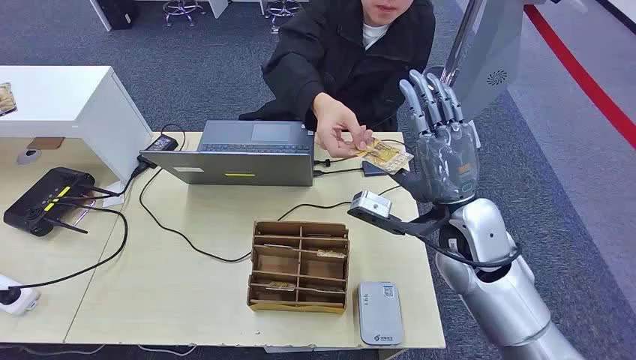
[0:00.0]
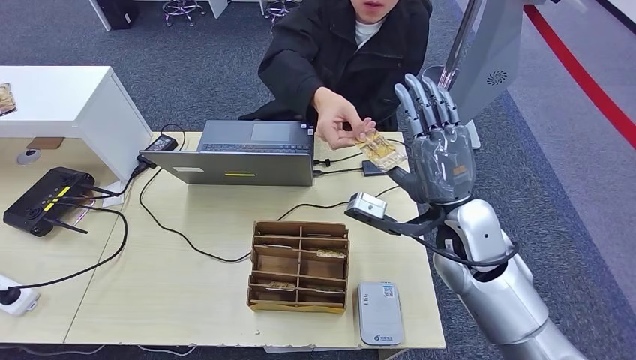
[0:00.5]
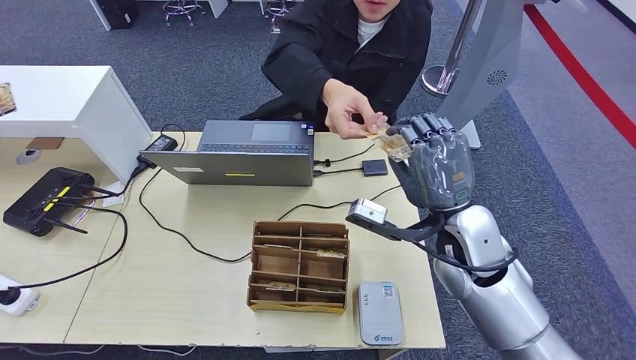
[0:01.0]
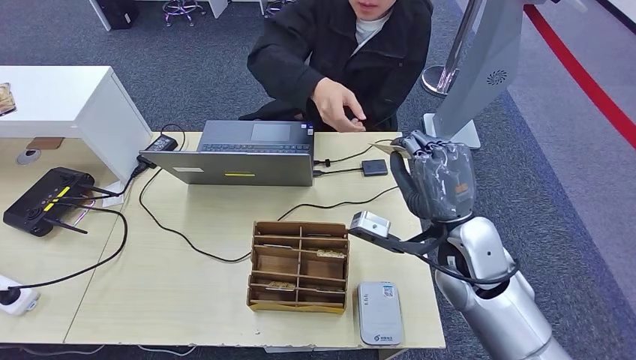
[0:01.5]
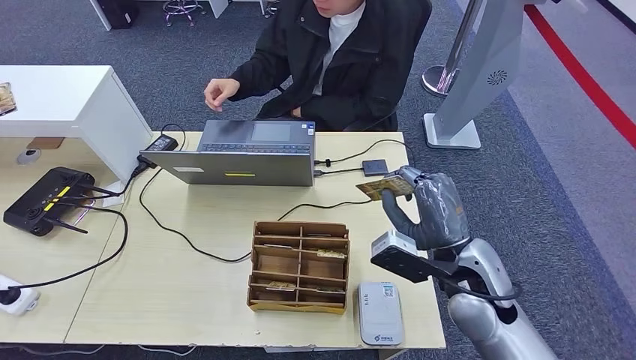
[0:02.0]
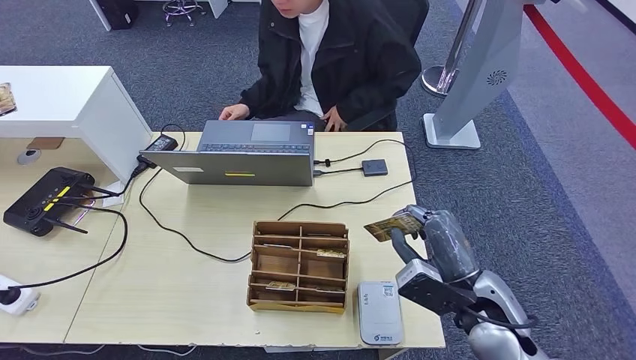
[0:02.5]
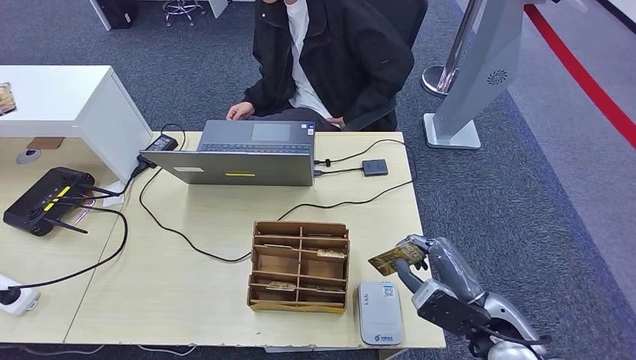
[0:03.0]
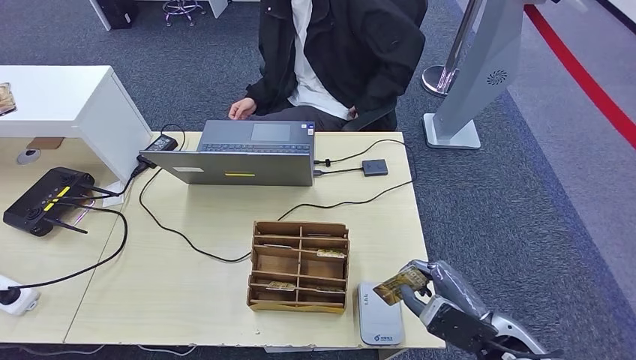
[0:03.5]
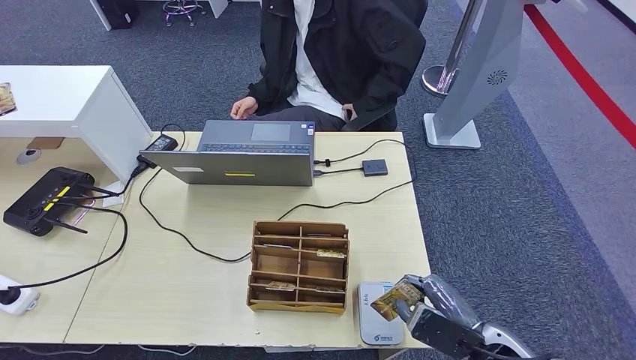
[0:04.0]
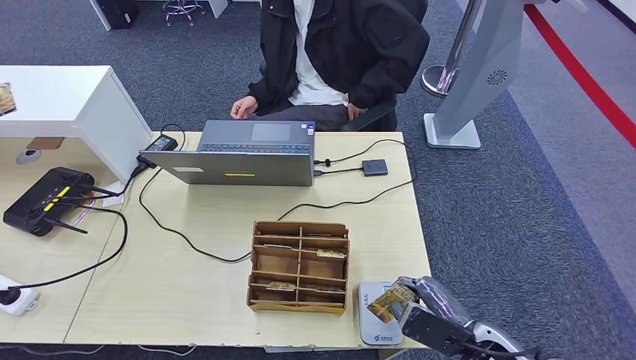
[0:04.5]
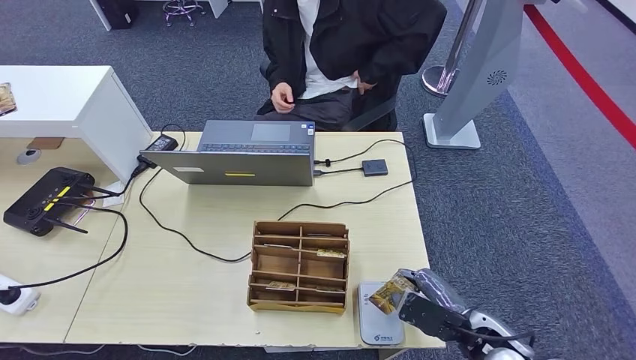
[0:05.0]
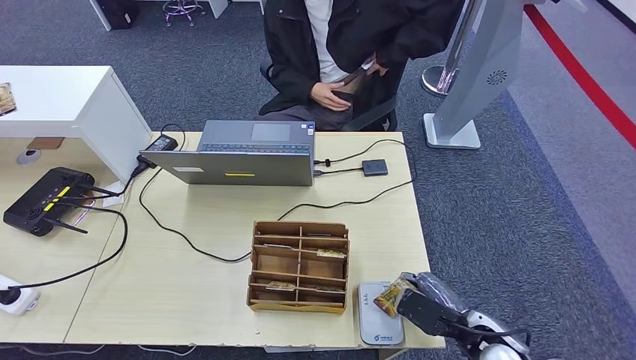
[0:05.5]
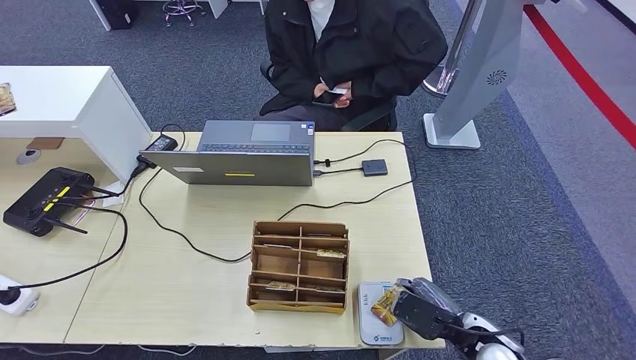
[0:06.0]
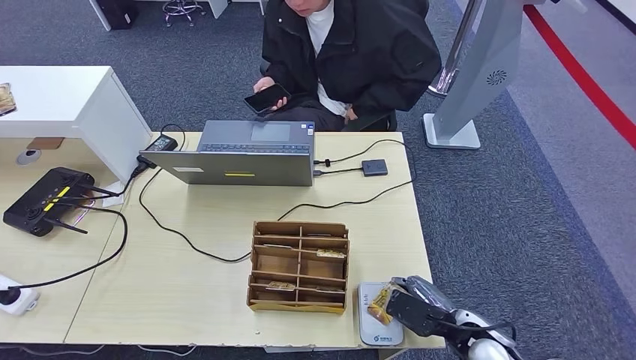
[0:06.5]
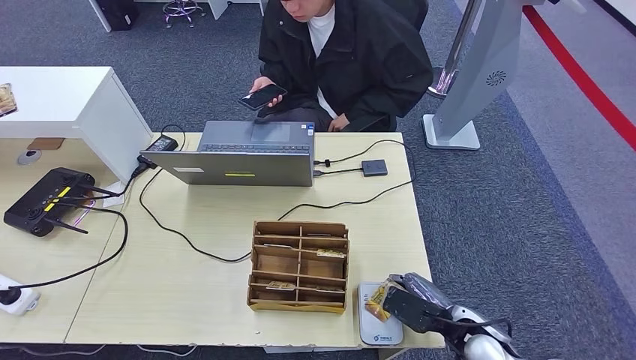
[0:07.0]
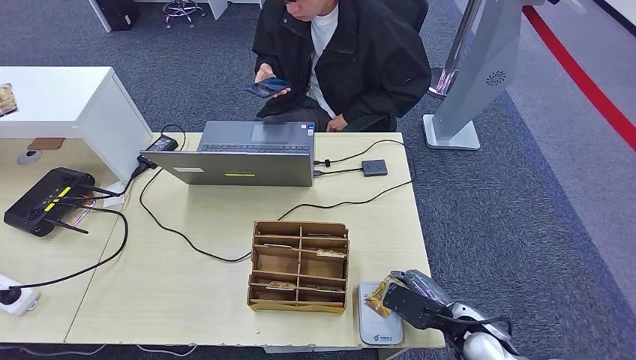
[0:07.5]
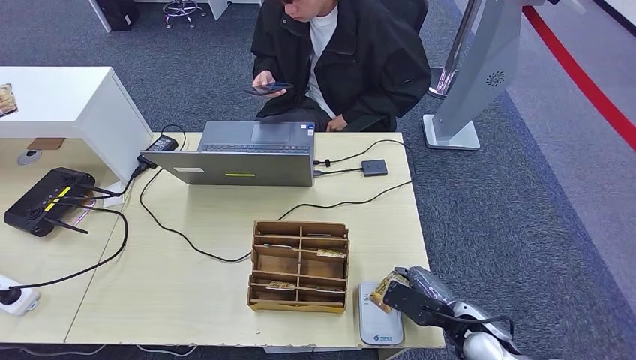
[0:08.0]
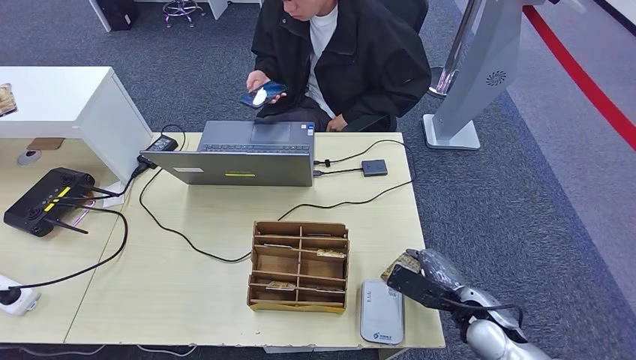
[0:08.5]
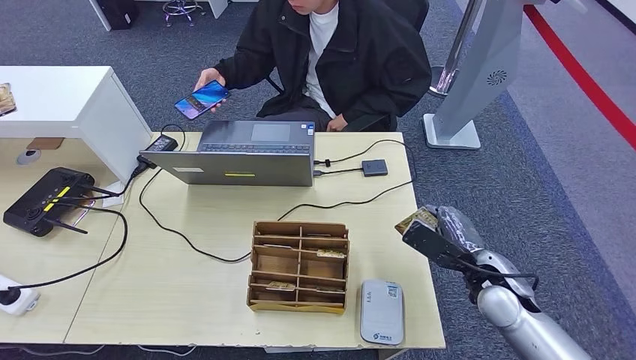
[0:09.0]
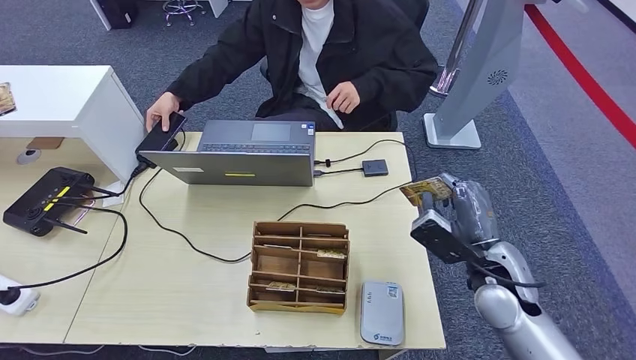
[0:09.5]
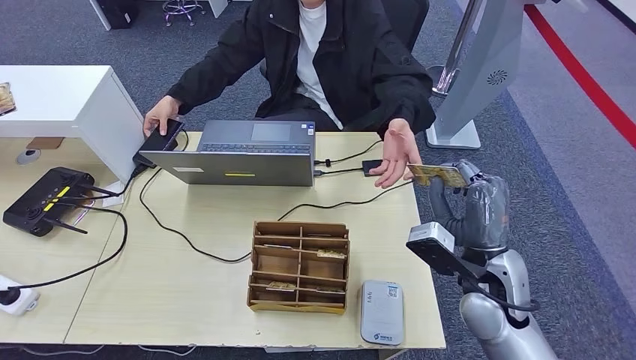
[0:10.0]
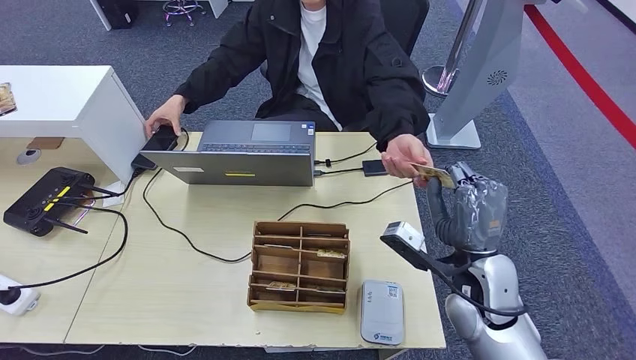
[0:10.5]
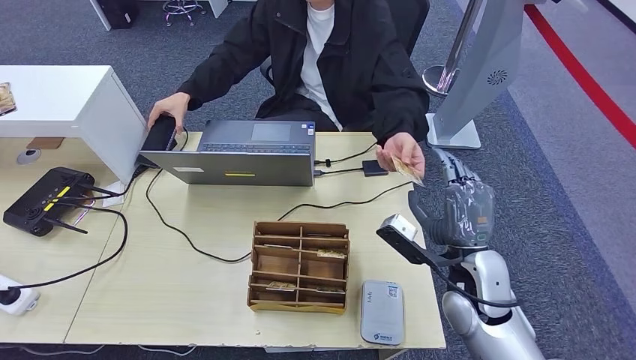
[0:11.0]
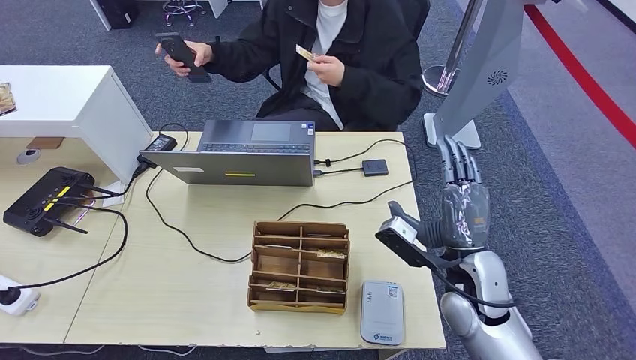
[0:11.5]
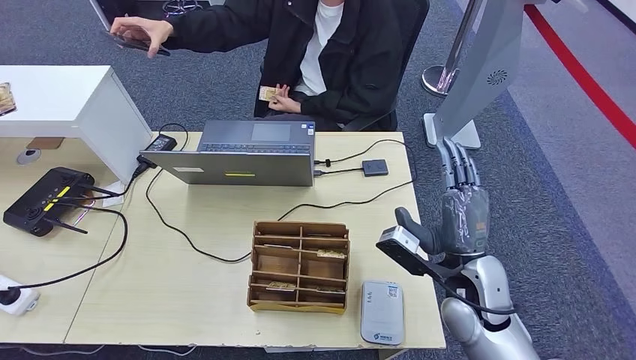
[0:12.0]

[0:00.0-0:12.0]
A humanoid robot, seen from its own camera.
Step, 0:00.0 to 0:01.5: Take the ID card from the person's hand.
Step, 0:02.0 to 0:05.0: Place the ID card on the card reader.
Step, 0:05.5 to 0:11.0: Hand the ID card to the person.
0:02.0 to 0:04.0: The right hand goes some 15 cm backward, downward and to the right.
0:04.0 to 0:06.0: The right hand shifts by roughly 5 cm.
0:06.0 to 0:08.0: The hands make only small movements.
0:08.0 to 0:10.0: The right hand heads upward, covering about 15 cm.

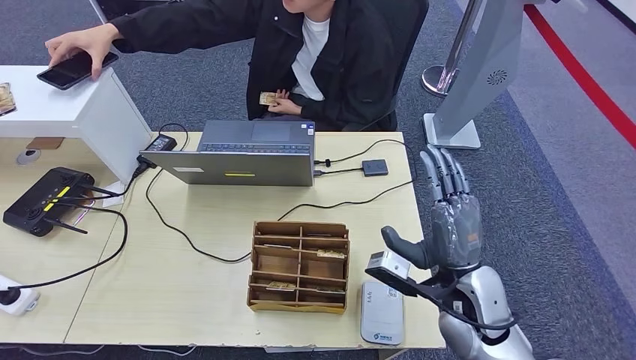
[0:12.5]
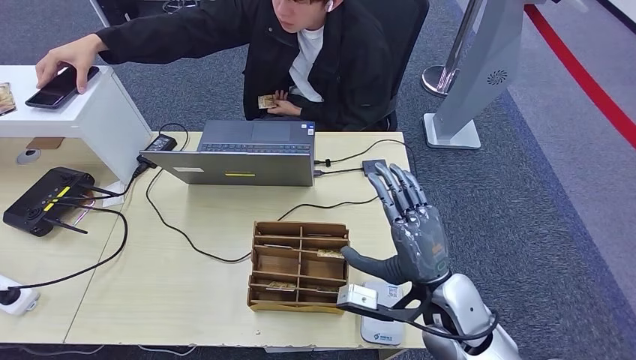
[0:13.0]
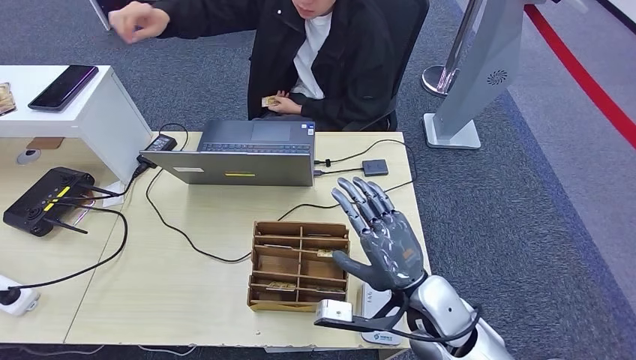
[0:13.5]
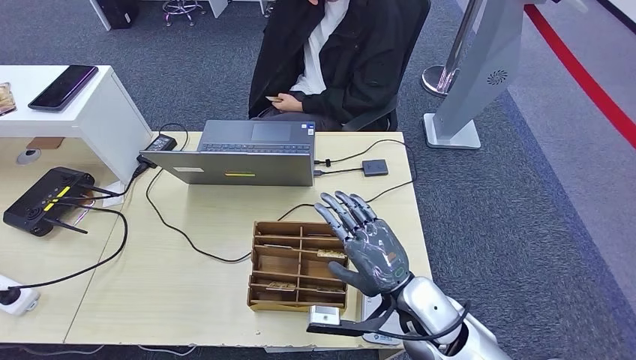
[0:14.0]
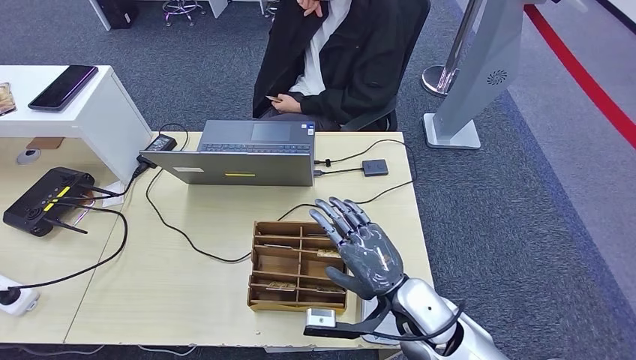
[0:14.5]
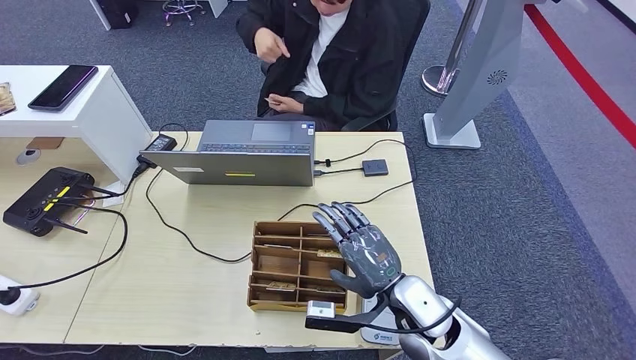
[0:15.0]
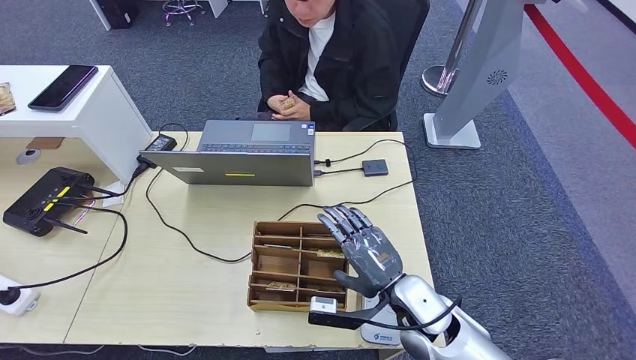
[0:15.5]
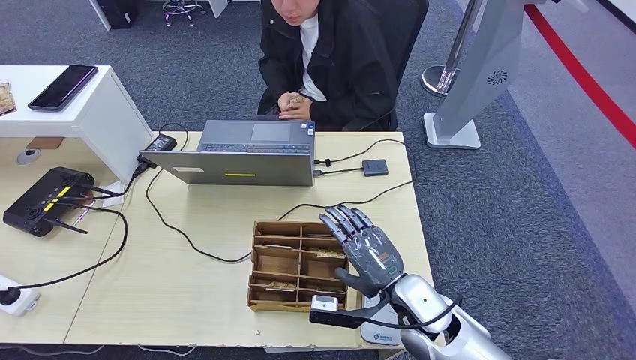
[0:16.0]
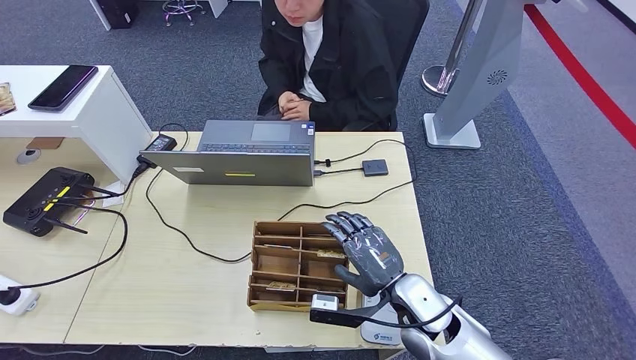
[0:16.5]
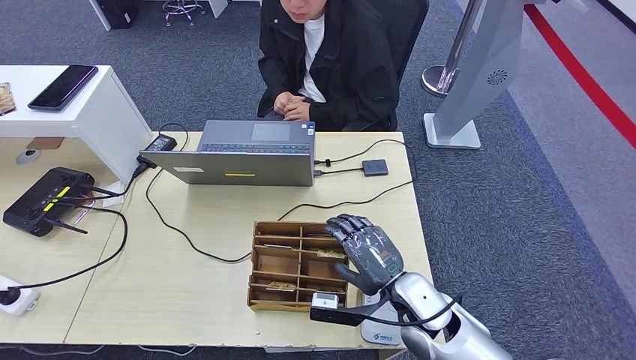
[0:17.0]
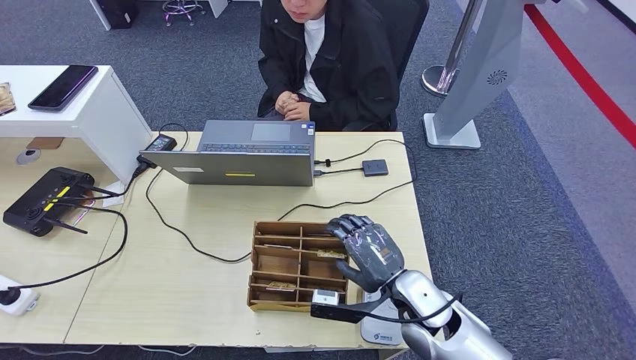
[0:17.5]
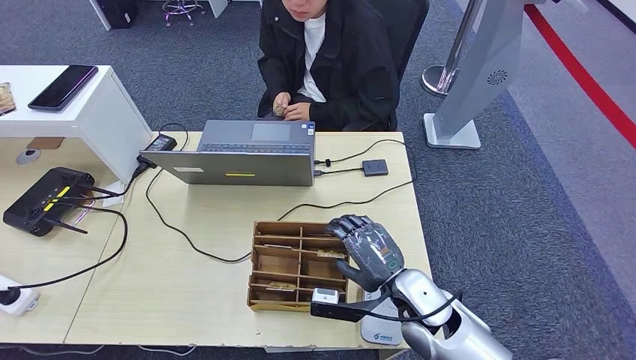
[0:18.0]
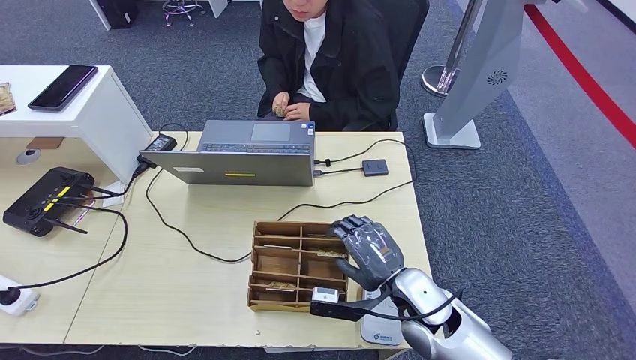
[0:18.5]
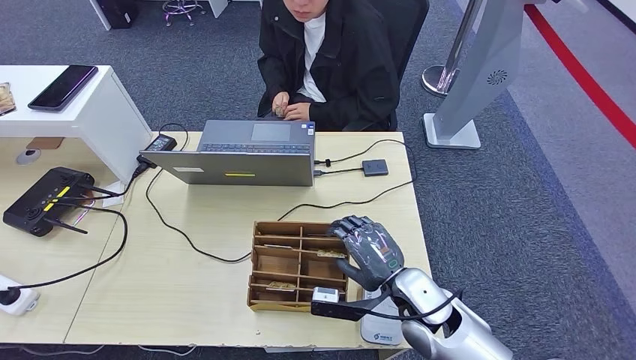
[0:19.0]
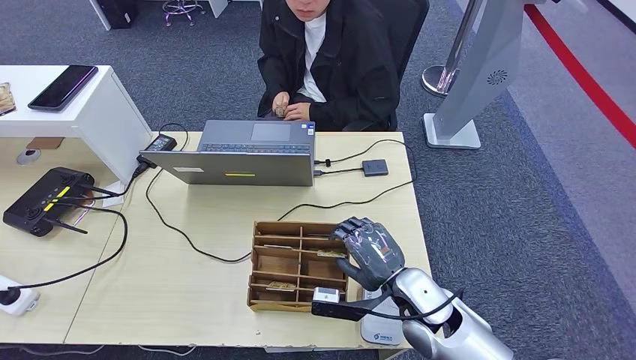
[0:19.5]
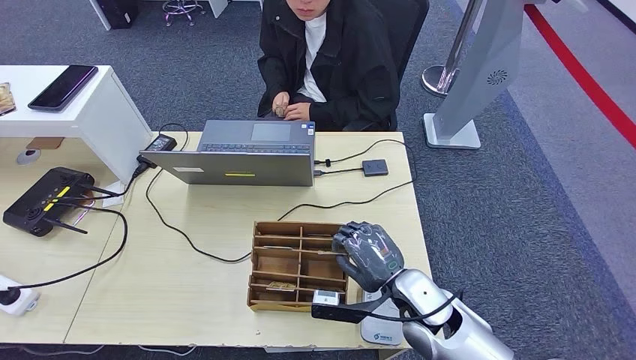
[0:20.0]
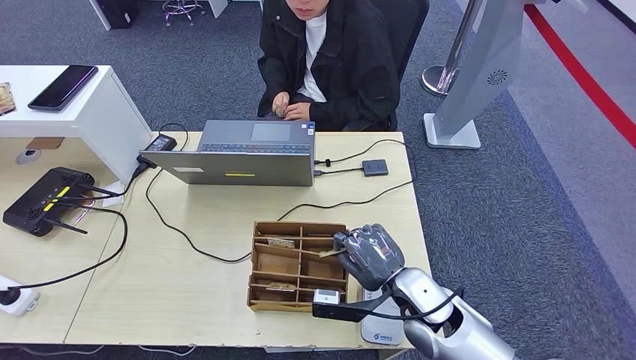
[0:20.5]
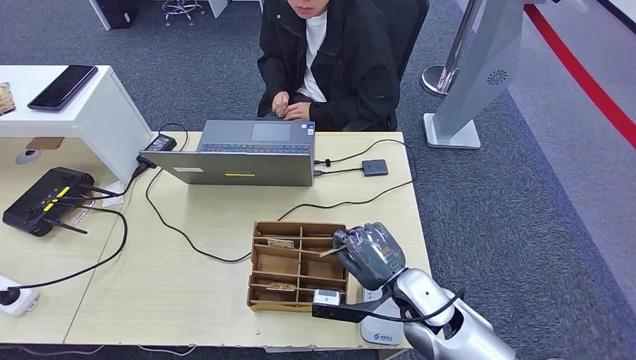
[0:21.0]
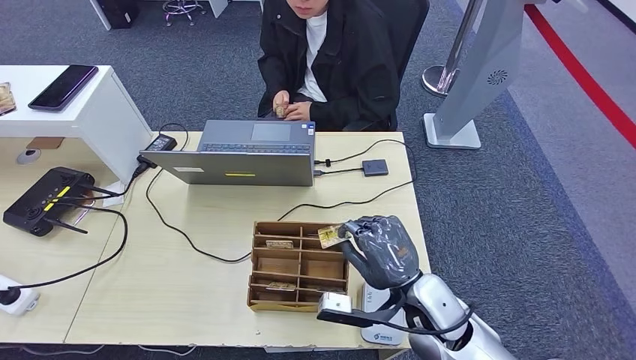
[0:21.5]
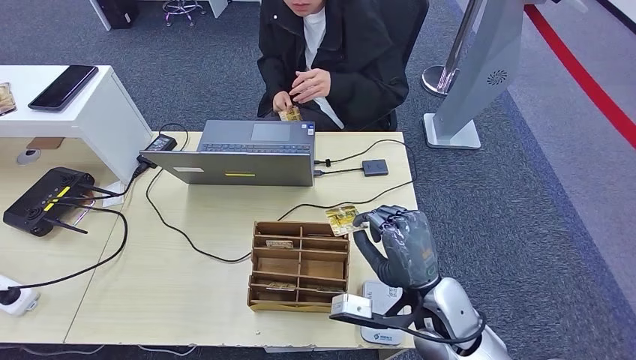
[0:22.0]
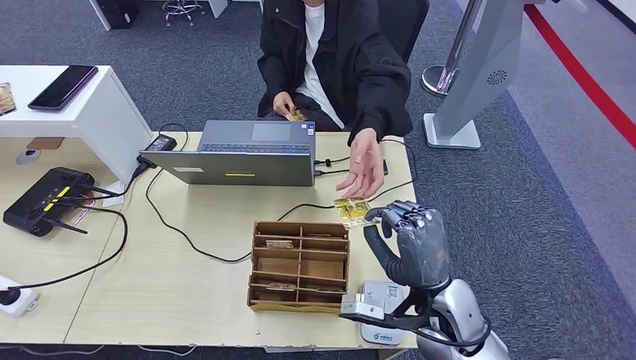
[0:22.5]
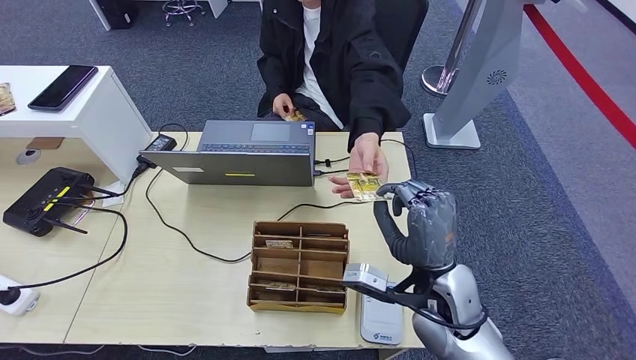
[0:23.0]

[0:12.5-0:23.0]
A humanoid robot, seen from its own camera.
Step, 0:12.5 to 0:21.5: Pick up the room key from the key card box.
0:12.5 to 0:14.5: The right hand moves to the left, approximately 10 cm.
0:14.5 to 0:16.5: The hands make only small movements.
0:16.5 to 0:21.0: Both hands stay about where they are.
0:21.0 to 0:23.0: The right hand travels upward by some 5 cm.
